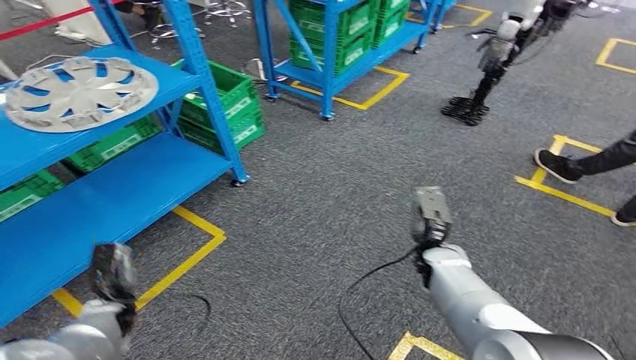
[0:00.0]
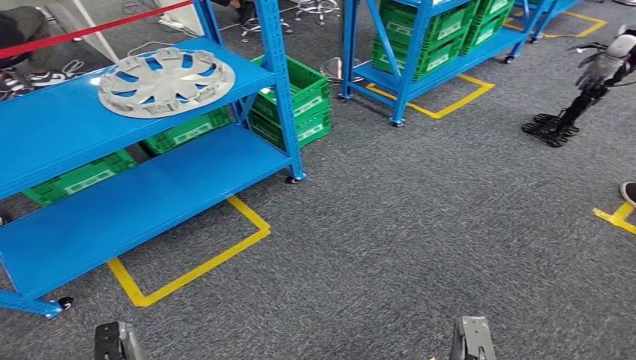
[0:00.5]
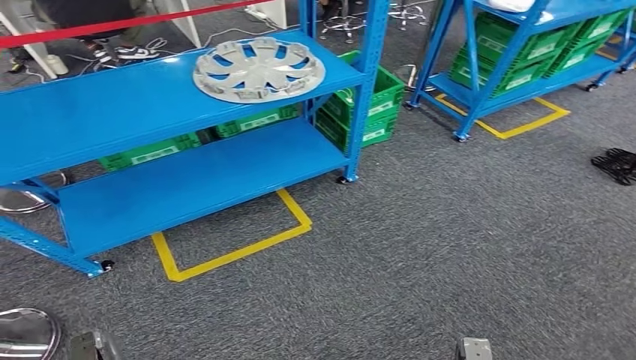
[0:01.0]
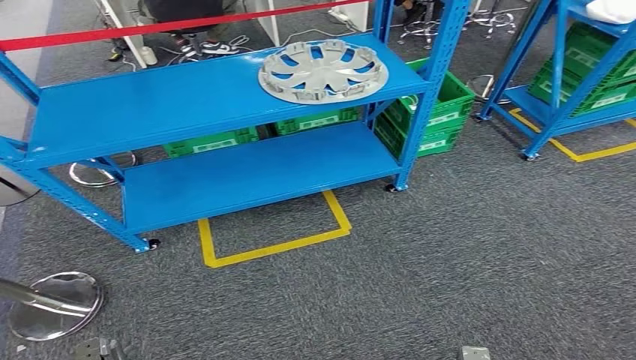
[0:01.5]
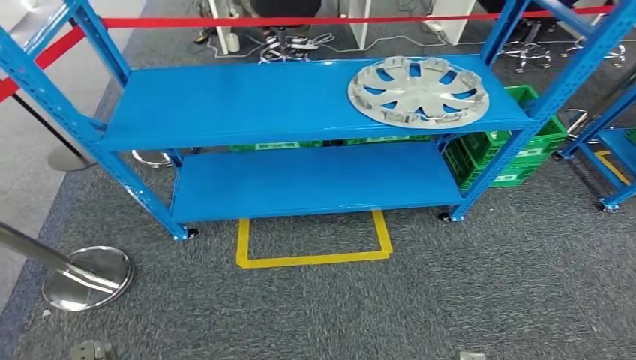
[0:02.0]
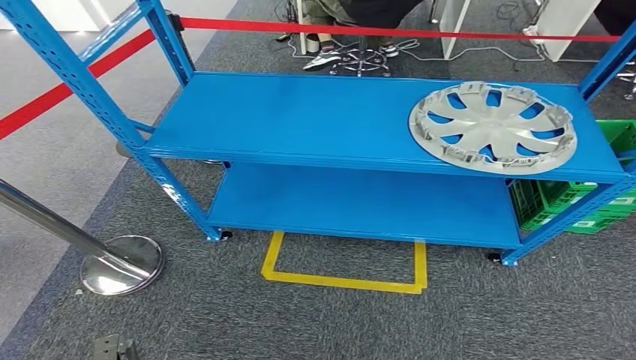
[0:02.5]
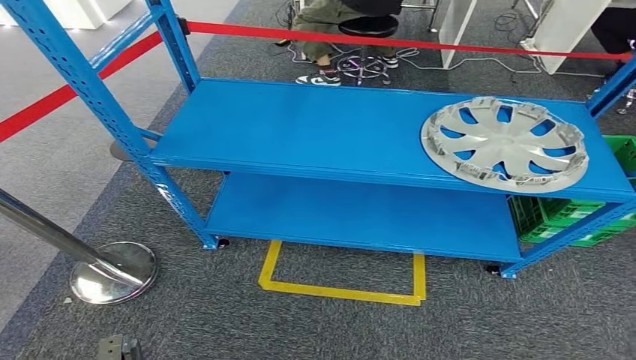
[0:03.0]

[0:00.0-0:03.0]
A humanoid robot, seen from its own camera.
Step, 0:00.0 to 0:03.0: Move to the initial position of the workbench.
